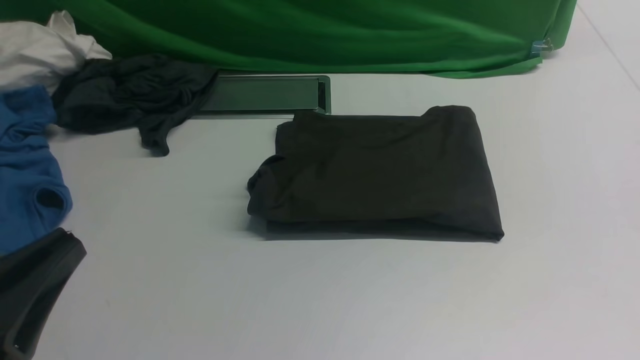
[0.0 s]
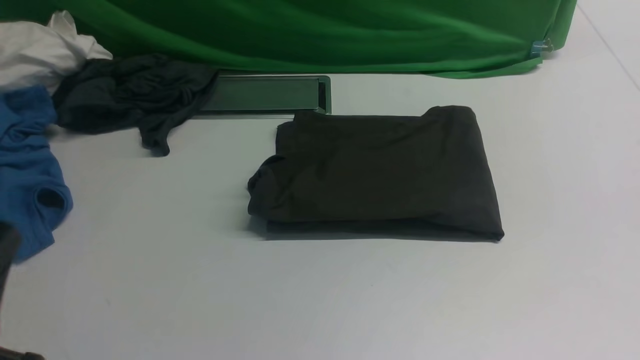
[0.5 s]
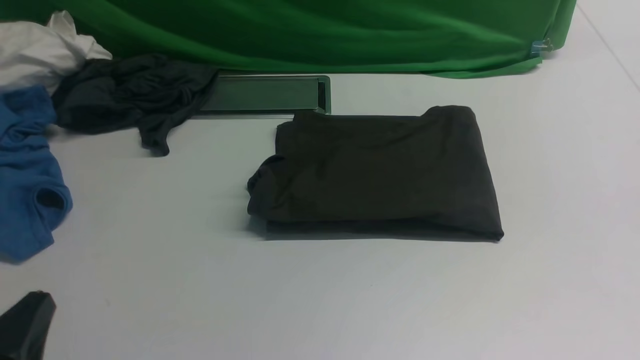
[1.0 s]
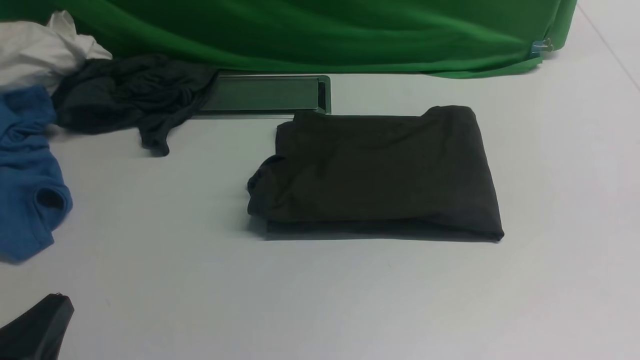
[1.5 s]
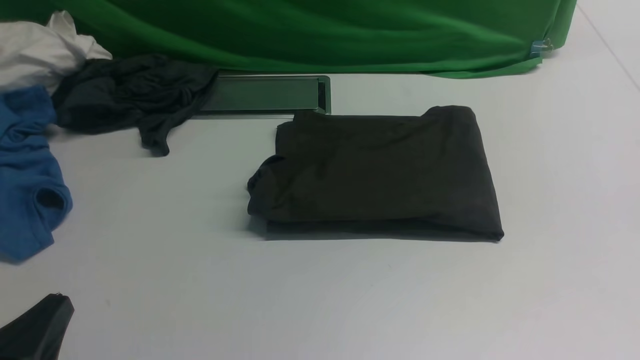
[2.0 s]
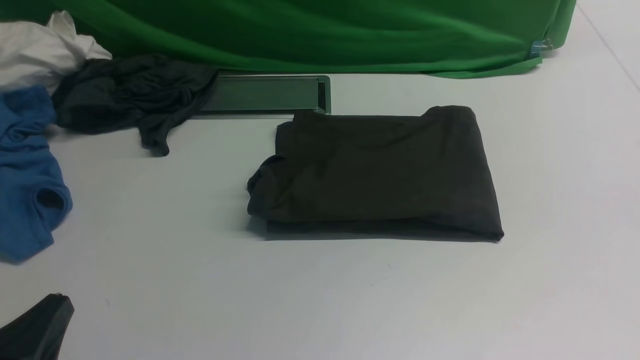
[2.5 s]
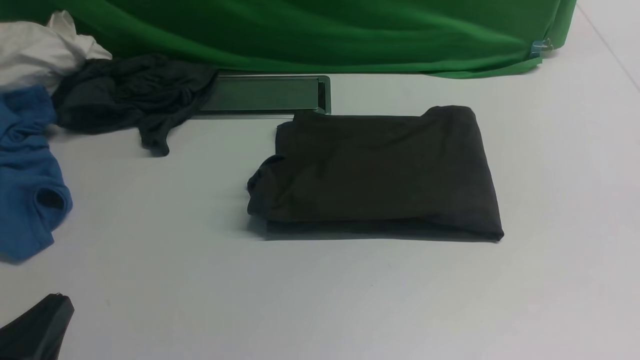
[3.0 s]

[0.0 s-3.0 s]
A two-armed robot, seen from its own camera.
0.0 to 1.5 s: The left gripper is displaced downward by about 10 cm.
1.5 to 3.0 s: Both grippers stay about where they are.
